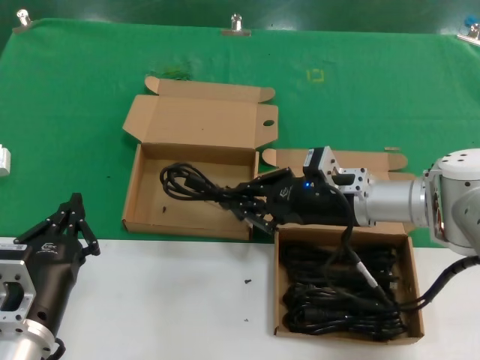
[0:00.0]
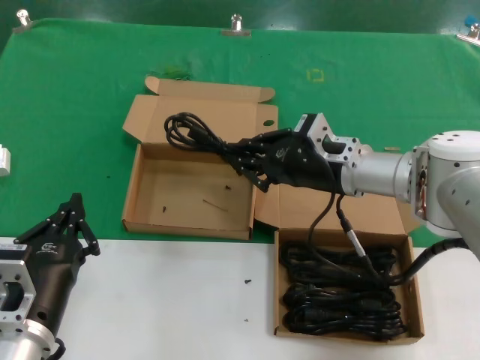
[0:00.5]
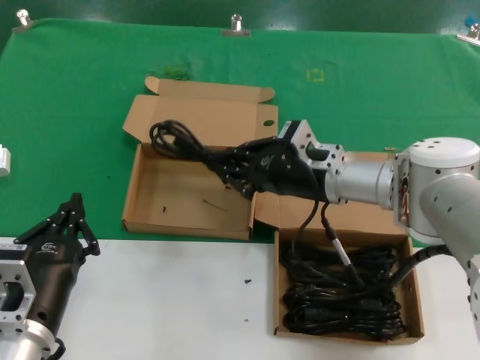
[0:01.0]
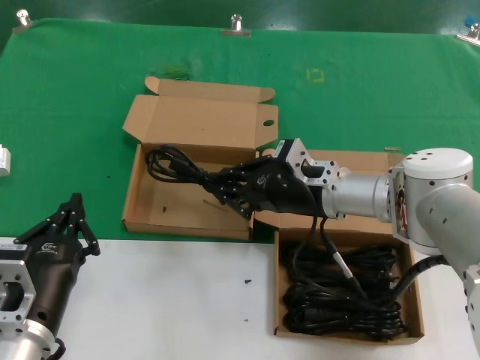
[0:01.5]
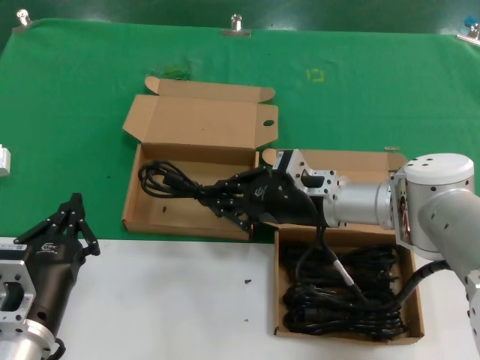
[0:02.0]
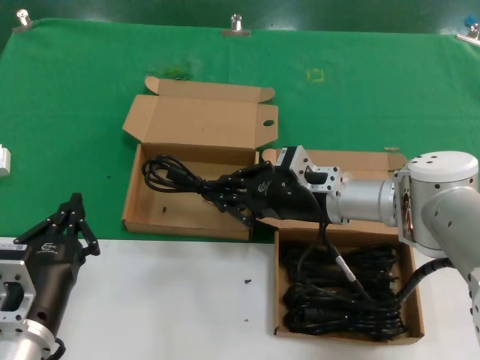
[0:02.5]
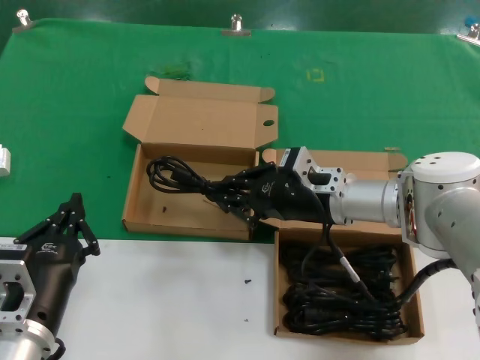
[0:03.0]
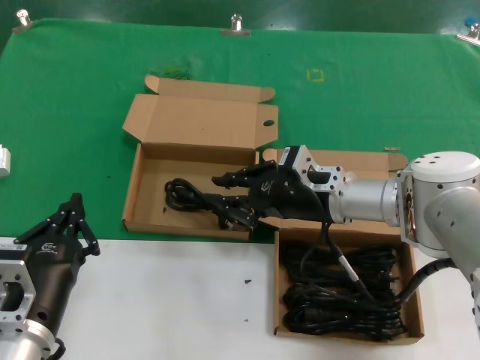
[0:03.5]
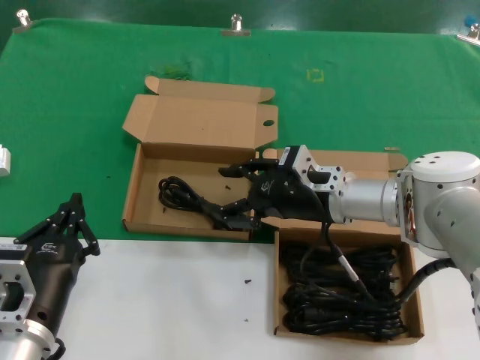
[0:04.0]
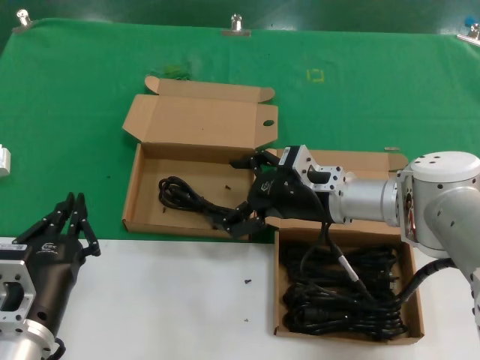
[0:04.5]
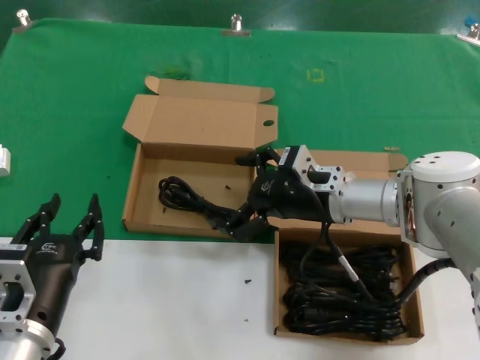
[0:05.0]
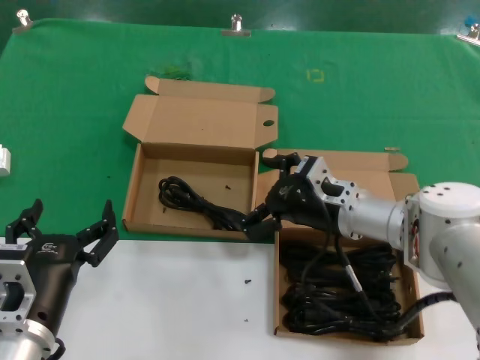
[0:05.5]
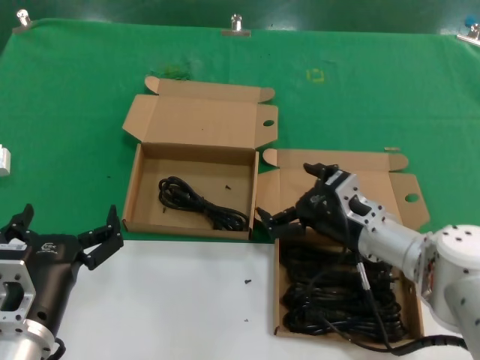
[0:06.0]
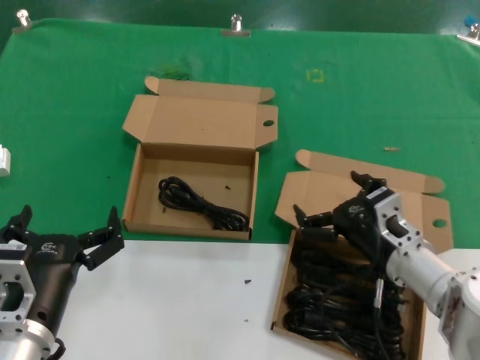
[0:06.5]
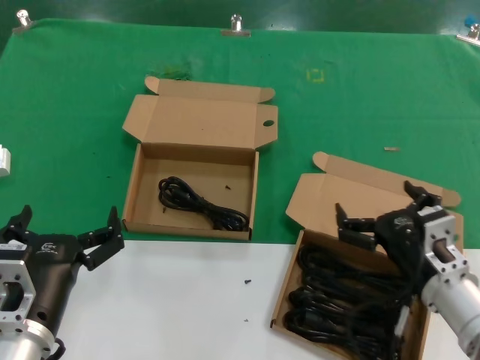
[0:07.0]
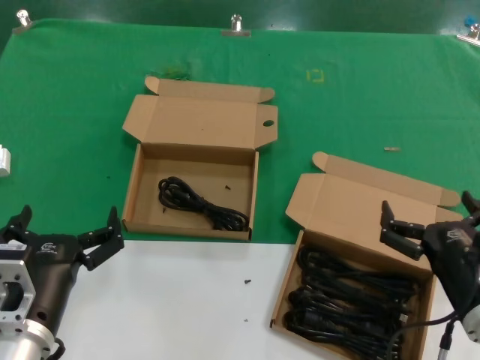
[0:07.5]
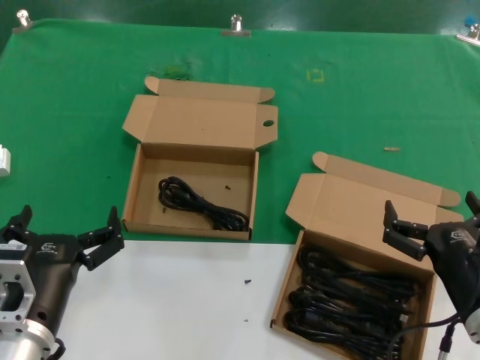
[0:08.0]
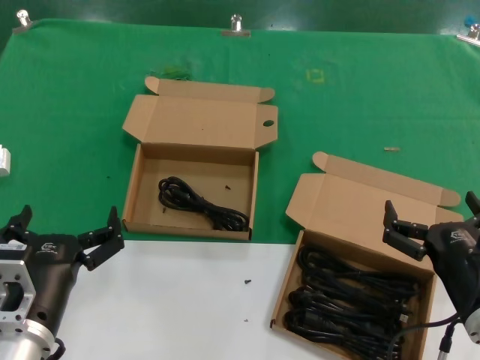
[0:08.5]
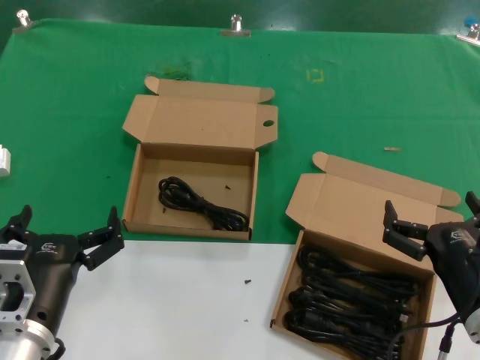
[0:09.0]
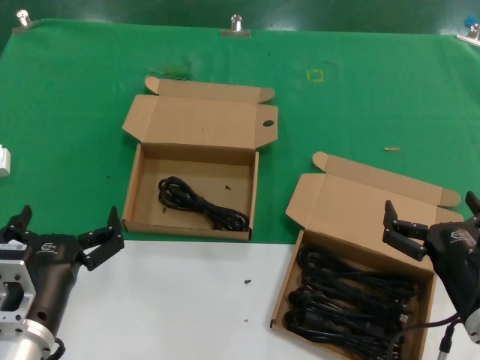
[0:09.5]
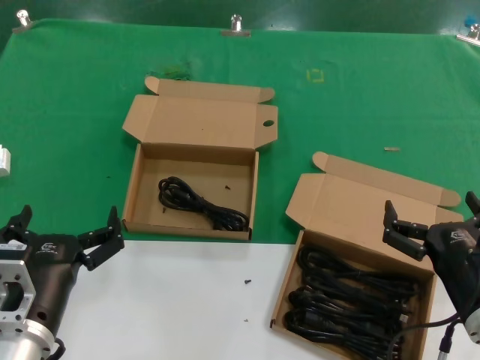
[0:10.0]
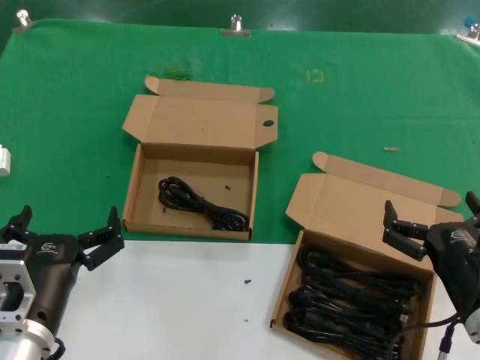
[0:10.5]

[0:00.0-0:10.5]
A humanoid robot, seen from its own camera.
Task of the whole recording: take the parts from the box containing them and put them into an empty box.
Step, 0:00.0 to 0:03.5: Place the data cable in the another box.
0:00.0 to 0:02.0: There are only small adjustments of the hands.
0:02.0 to 0:04.0: Both hands stay about where they are.
0:04.0 to 0:06.5: The right hand goes roughly 15 cm backward, downward and to the right.
0:06.5 to 0:08.5: The right hand heads backward, covering roughly 15 cm.
0:08.5 to 0:10.5: Both hands stay about where they are.
